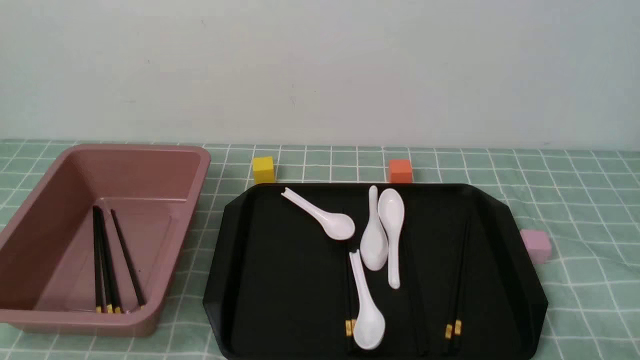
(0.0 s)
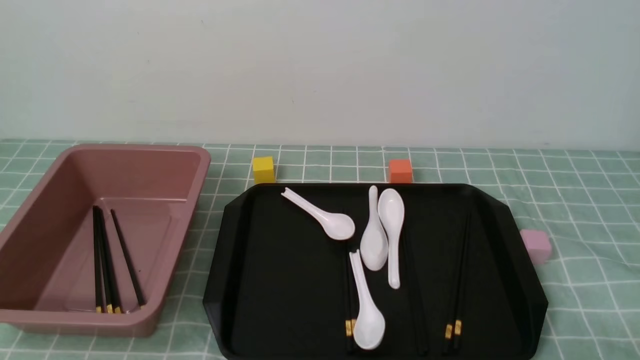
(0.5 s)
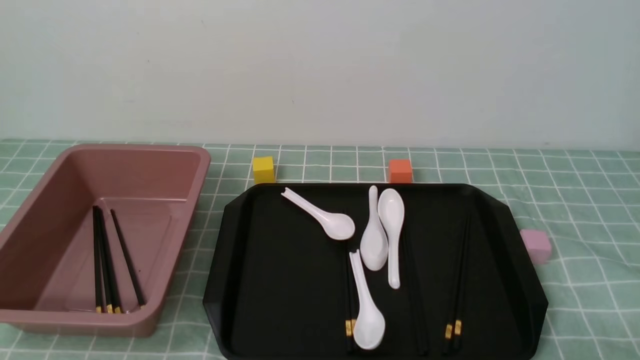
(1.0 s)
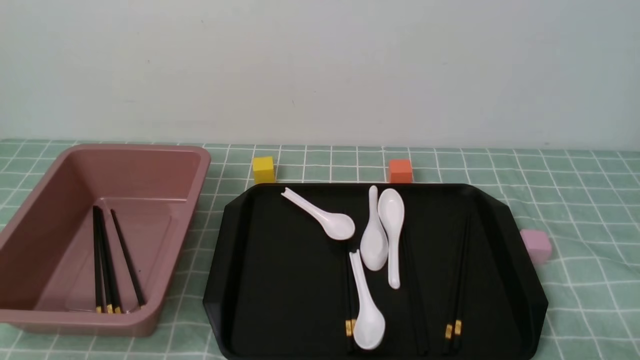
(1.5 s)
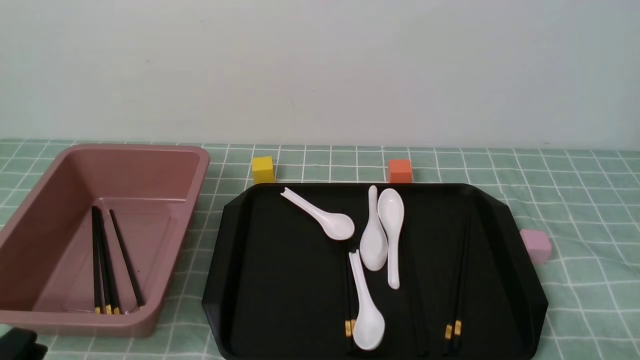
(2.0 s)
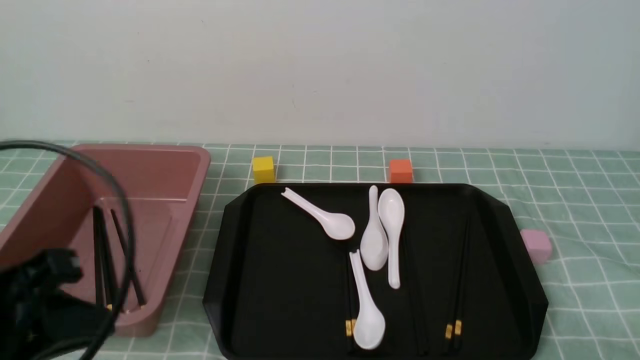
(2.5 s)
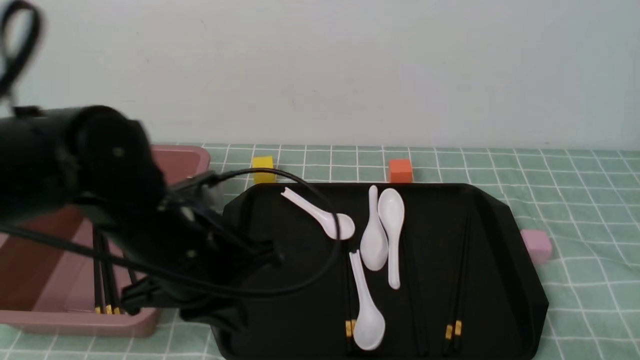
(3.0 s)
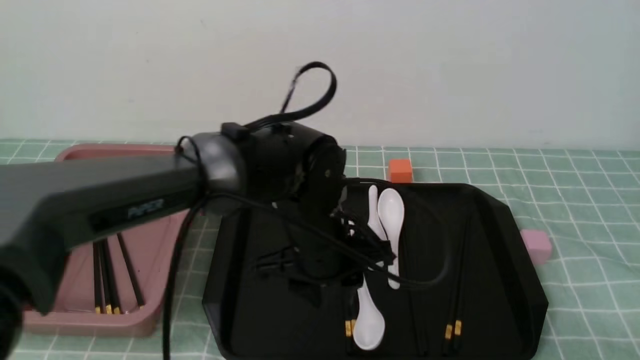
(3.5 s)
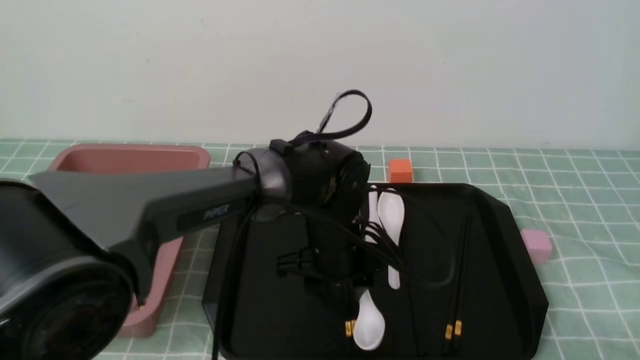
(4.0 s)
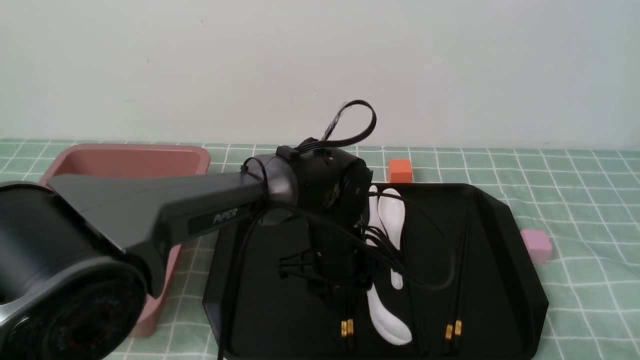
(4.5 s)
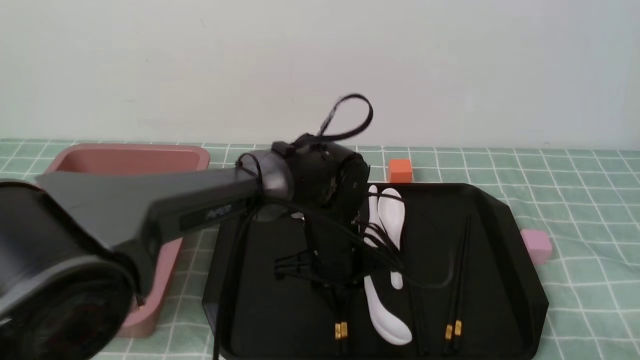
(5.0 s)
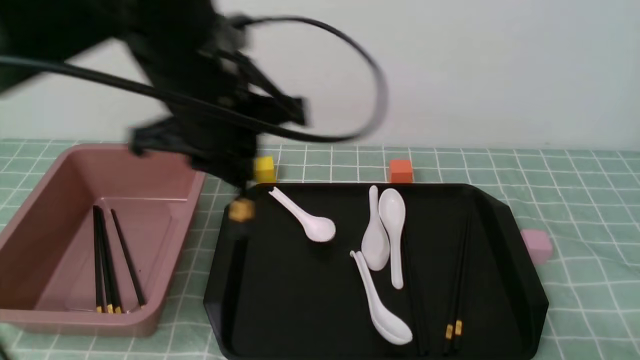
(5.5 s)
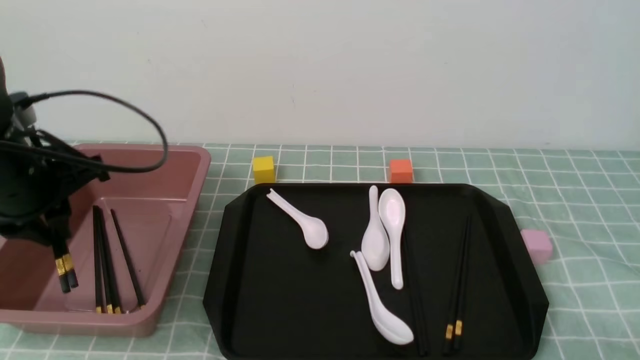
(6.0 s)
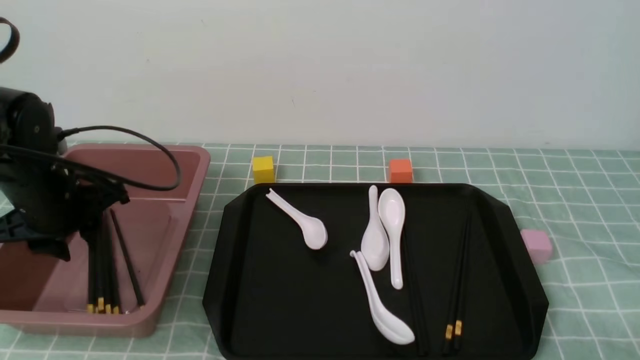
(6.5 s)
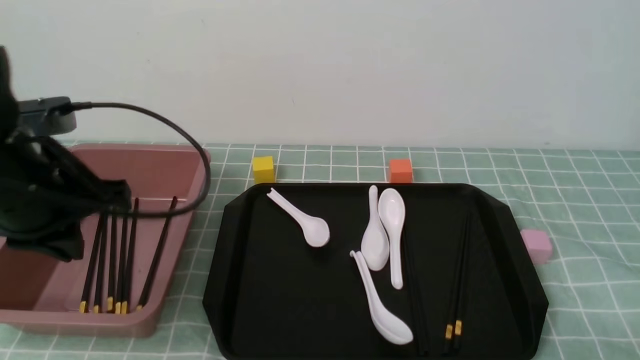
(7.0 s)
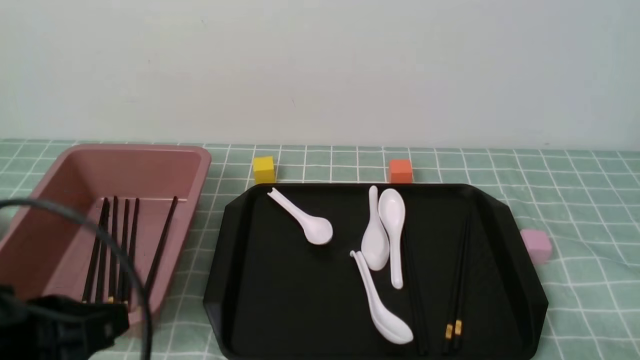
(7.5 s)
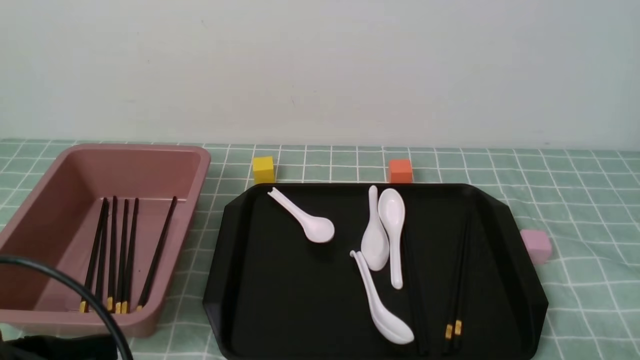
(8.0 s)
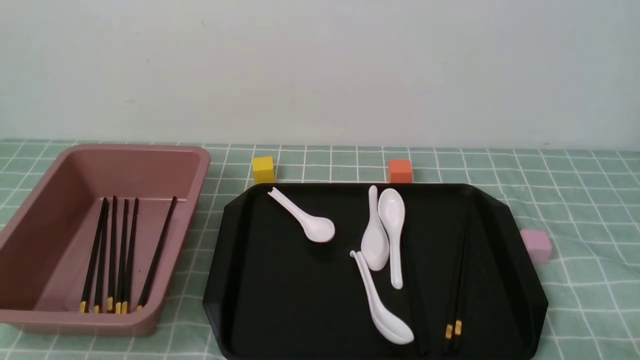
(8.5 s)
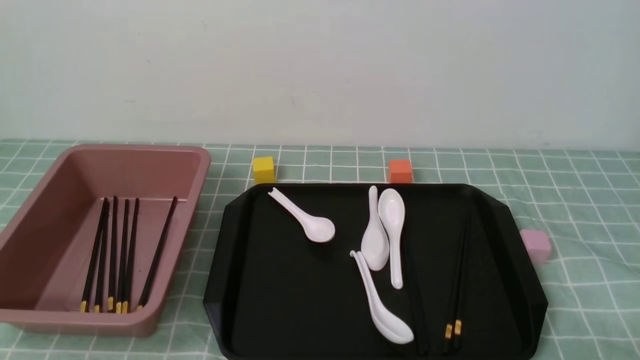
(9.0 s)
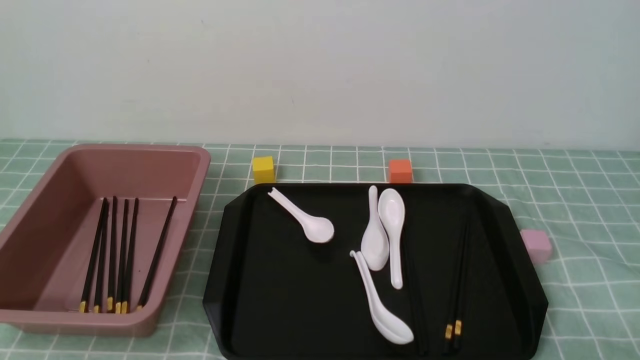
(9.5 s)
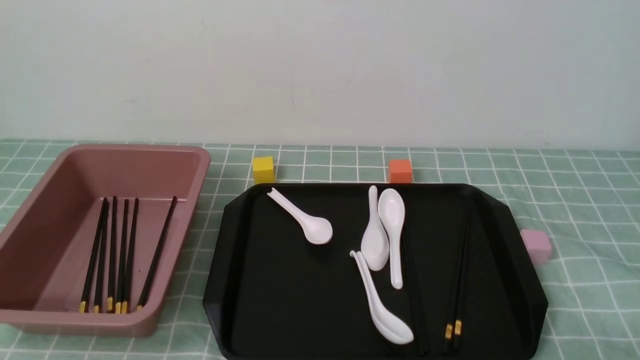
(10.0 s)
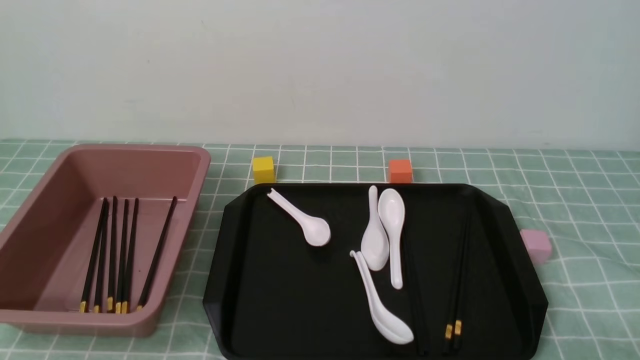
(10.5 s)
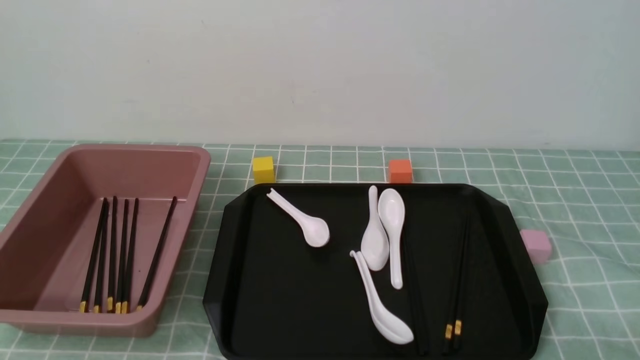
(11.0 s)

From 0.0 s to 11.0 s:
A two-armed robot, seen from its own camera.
Step, from 0.0 s to 5.0 s: use the left arm to grab a pair of chopsticks.
Step, from 5.5 s to 6.5 s: use the left arm to put the chopsticks into the lunch box.
From 0.0 s to 2.0 s: The left gripper moves upward, about 5 cm.
From 2.0 s to 3.5 s: The left gripper moves forward and to the right, about 35 cm, and opens its fingers.
From 3.5 s to 5.5 s: The left gripper travels upward and to the left by about 20 cm, and closes its fingers.
From 5.5 s to 7.5 s: The left gripper shifts some 20 cm backward and to the left, and closes.
From 7.5 s to 9.0 s: The left gripper goes approximately 15 cm downward, backward and to the left.
From 9.0 s to 11.0 s: Both grippers stay put.
